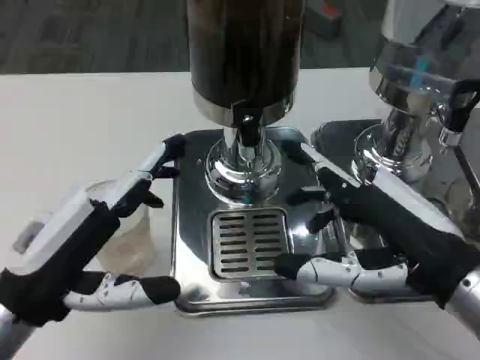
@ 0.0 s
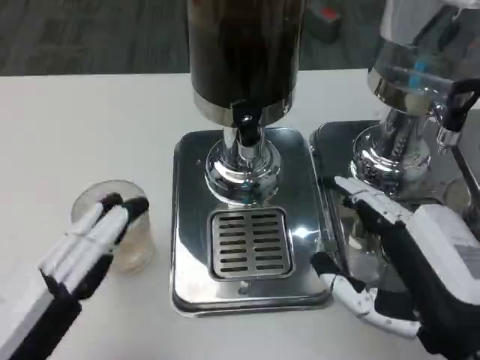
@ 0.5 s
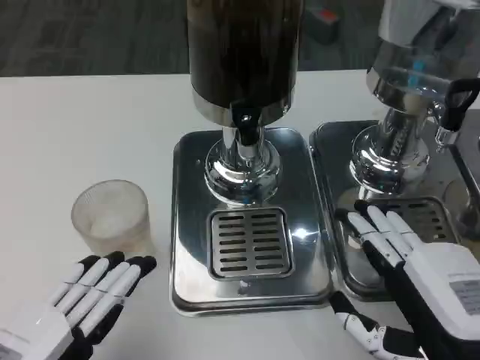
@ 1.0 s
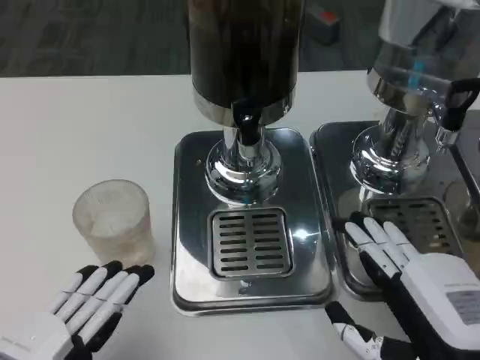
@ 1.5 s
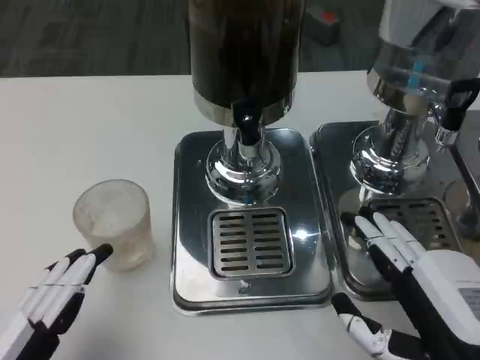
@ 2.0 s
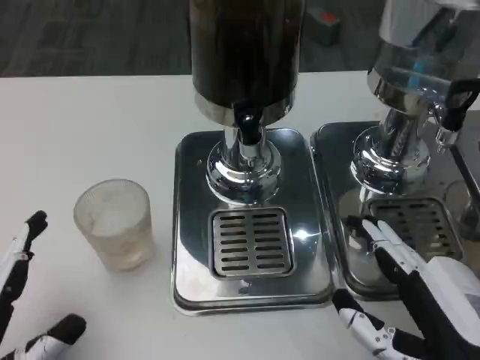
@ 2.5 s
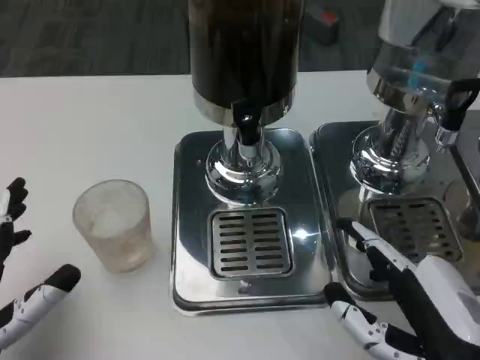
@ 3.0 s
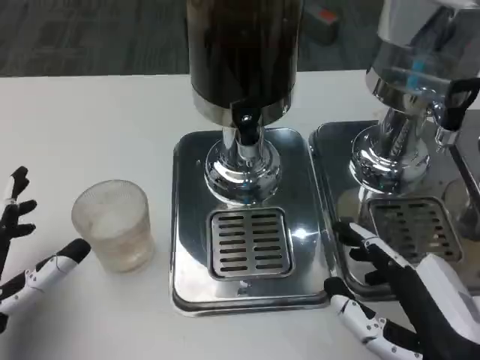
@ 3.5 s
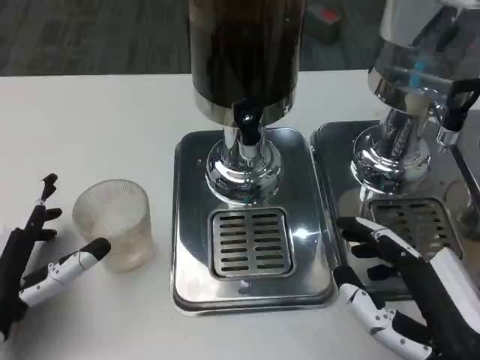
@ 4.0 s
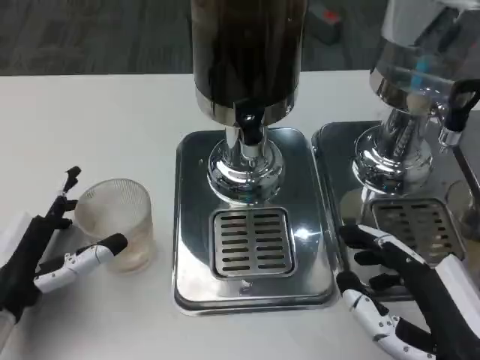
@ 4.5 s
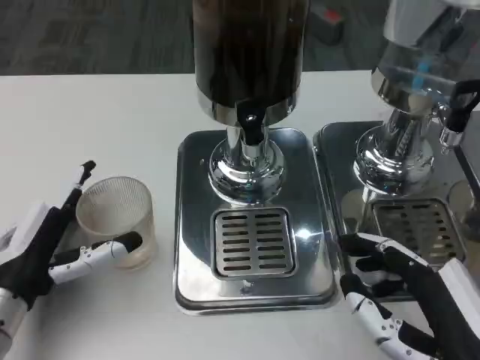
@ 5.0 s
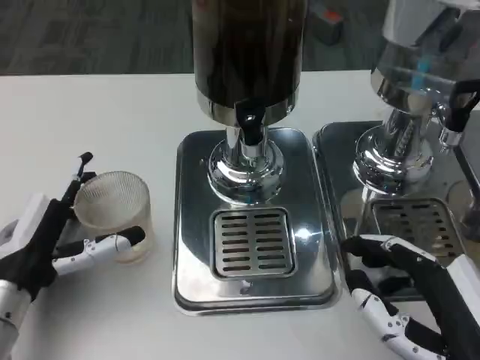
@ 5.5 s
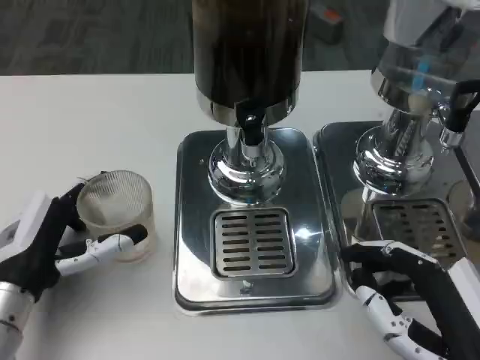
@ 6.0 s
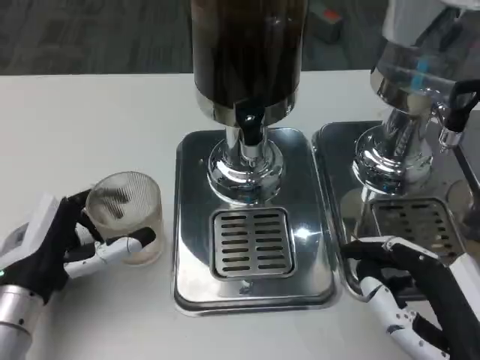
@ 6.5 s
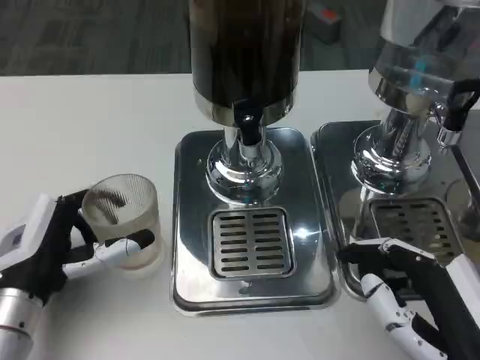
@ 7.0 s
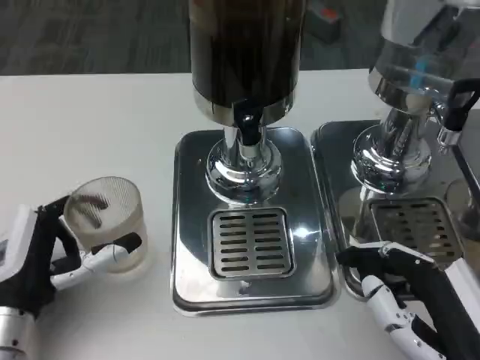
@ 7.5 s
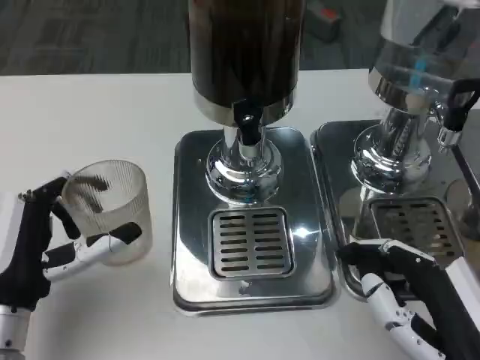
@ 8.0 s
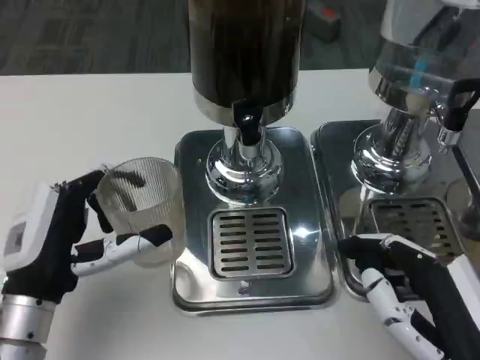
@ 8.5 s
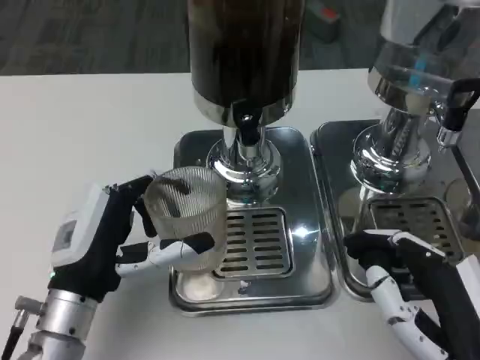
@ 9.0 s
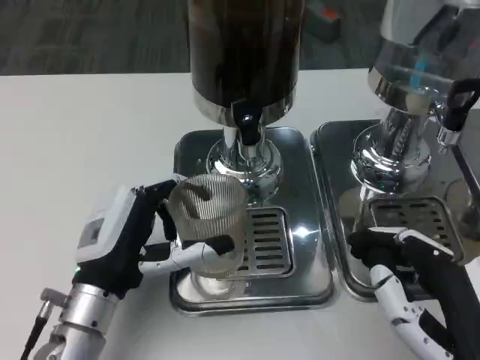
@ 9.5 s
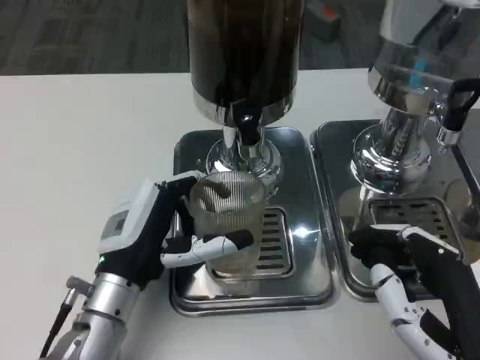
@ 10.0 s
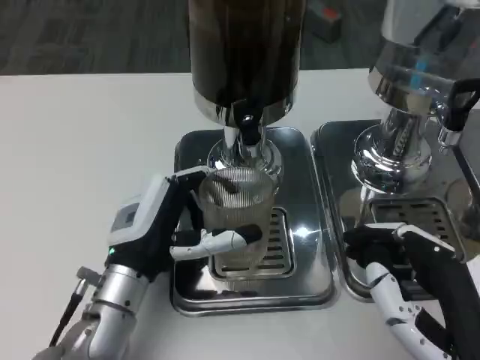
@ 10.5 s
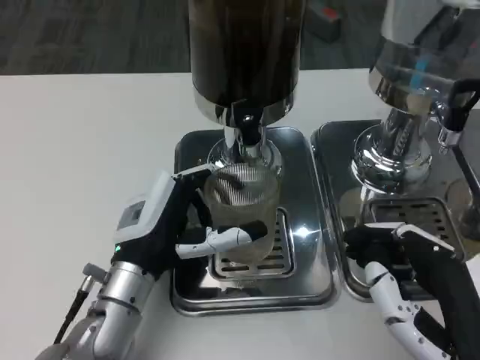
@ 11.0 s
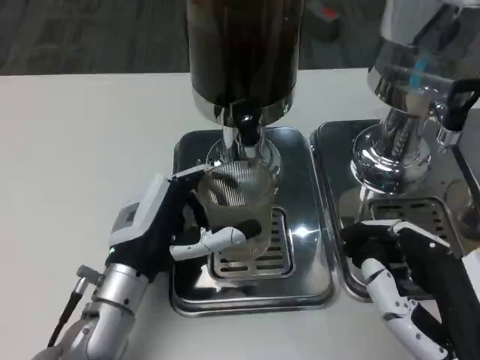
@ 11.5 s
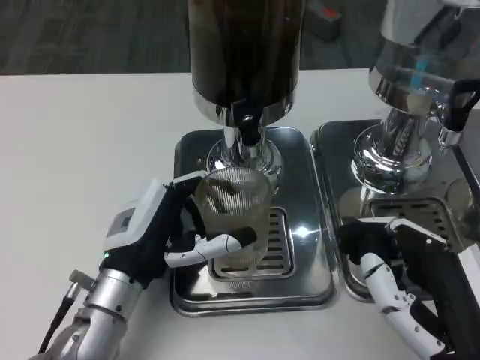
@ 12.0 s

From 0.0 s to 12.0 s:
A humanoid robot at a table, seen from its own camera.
Task of the whole recording: Grasp the cup under the faucet to collect the drink, then remove the cup.
From 0.0 s to 2.0 s: Both hands move backward, approximately 10 cm.
From 2.0 s to 4.0 s: The left hand heads forward, covering approximately 10 cm.
From 6.0 s to 8.0 s: The hands make only small movements.
From 8.0 s to 10.0 s: The left hand heads to the right, covering roughly 10 cm.
From 10.0 s to 12.0 s: The hands move only a little.

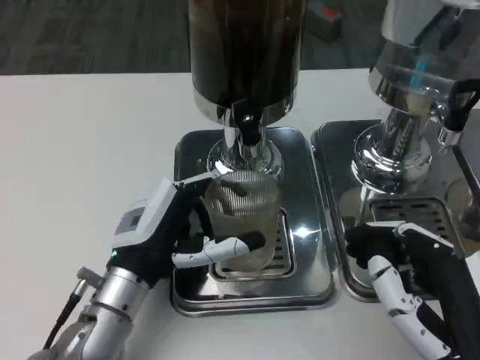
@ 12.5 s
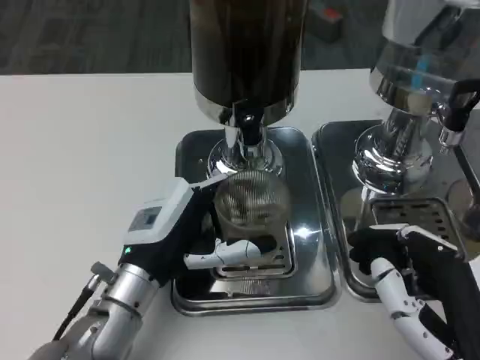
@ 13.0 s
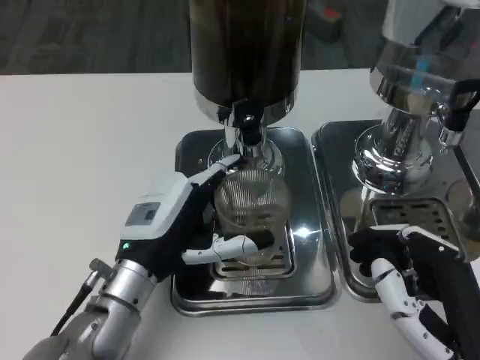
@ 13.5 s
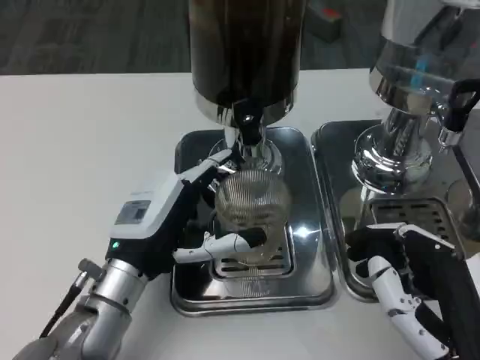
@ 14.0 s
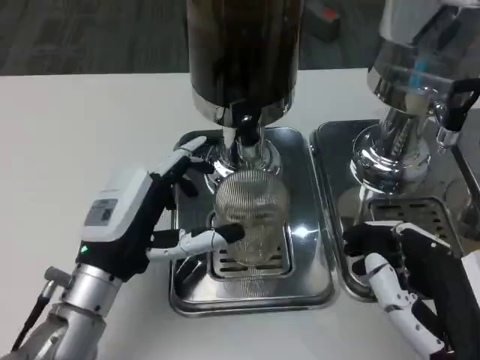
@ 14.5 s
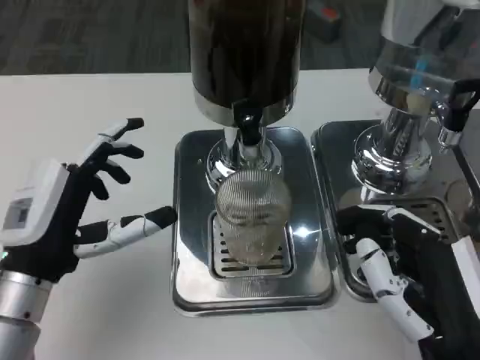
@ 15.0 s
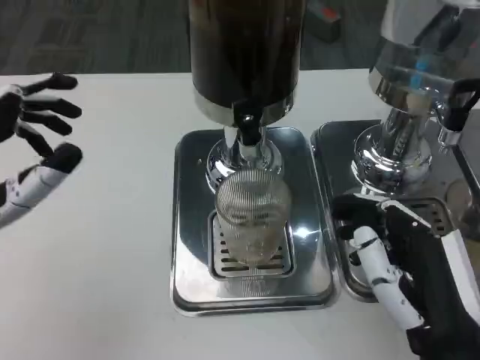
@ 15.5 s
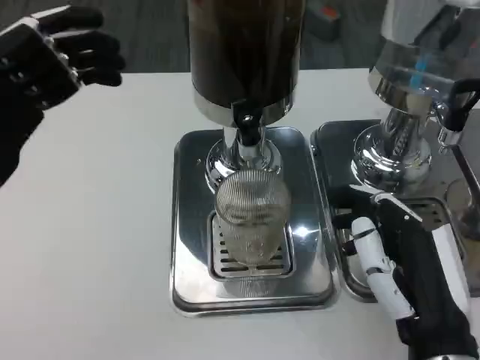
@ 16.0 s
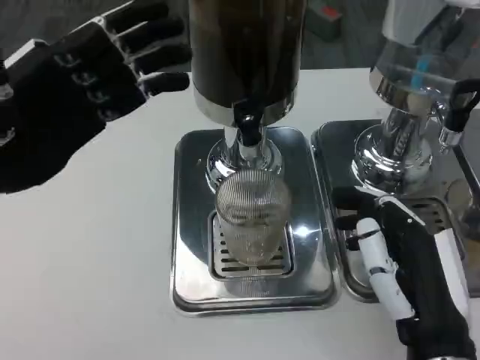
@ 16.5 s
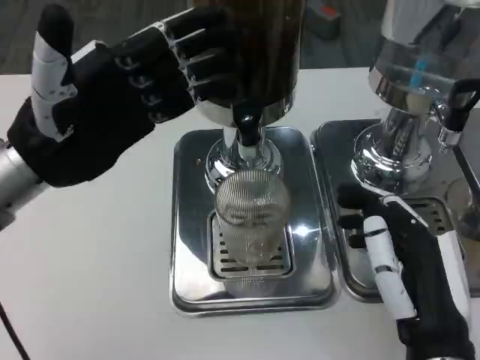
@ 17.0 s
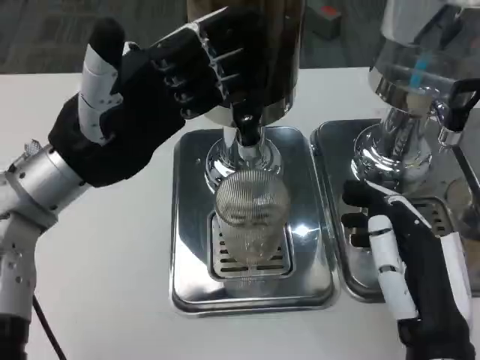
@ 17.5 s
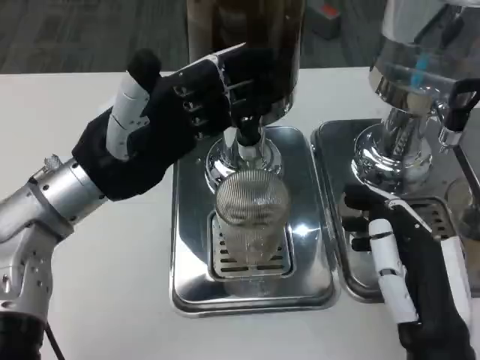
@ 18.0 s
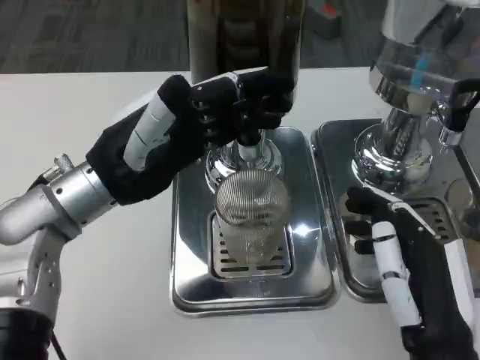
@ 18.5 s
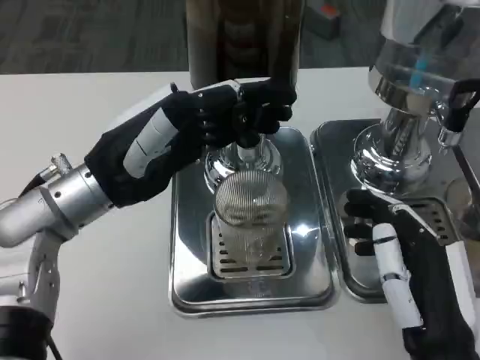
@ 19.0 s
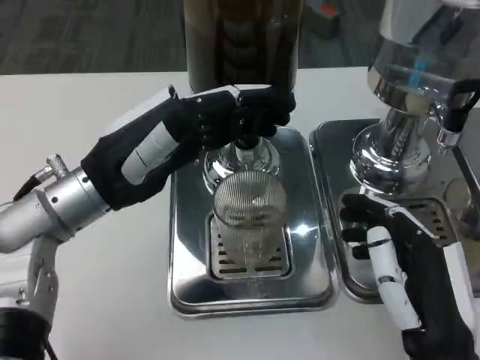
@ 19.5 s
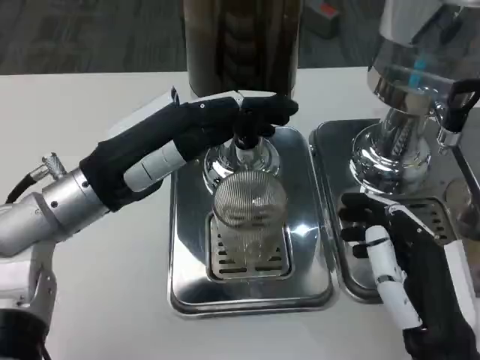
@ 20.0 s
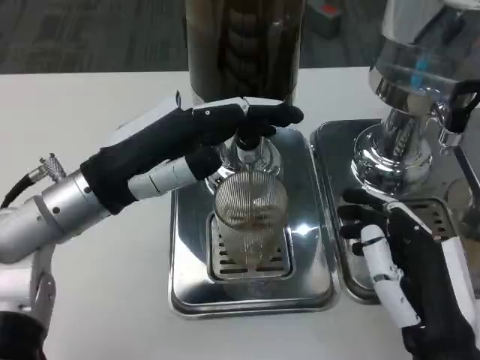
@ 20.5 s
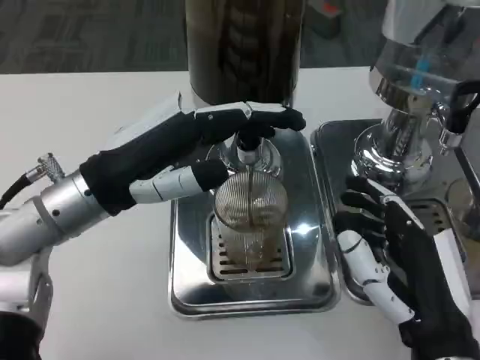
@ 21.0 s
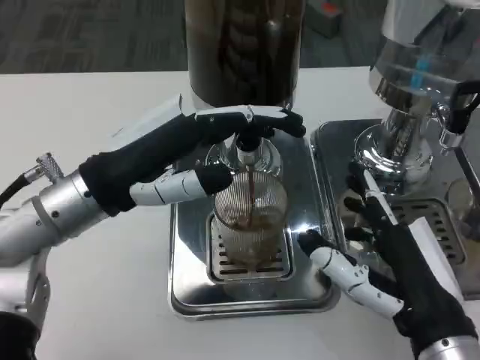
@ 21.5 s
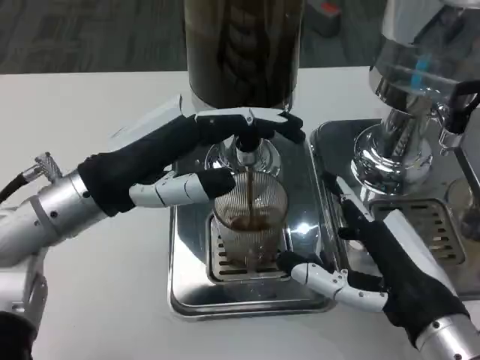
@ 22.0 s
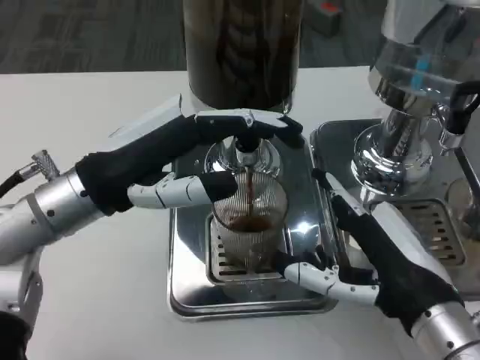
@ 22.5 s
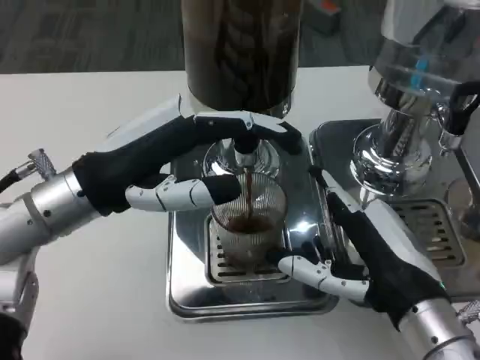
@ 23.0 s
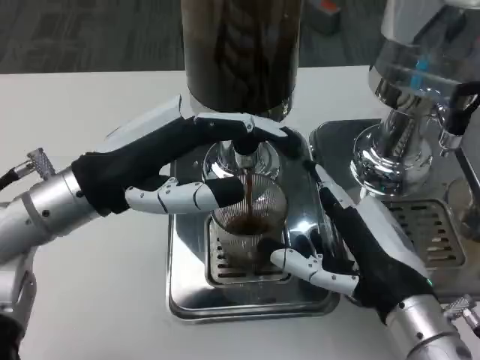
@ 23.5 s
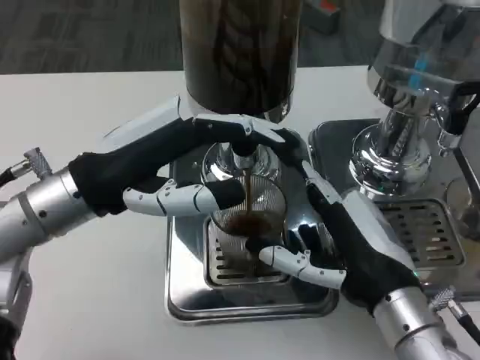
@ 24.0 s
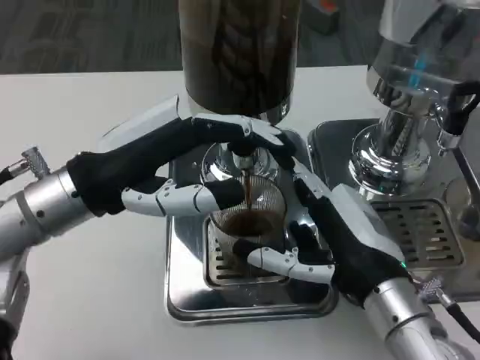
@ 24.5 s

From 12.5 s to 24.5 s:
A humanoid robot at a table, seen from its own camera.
Task of the whole recording: Grasp the cup under the faucet to collect the drink, then remove the cup.
From 12.5 s to 14.5 s: The hands stay close to where they were, moving slightly.
From 14.5 s to 16.5 s: The left hand travels upward and to the left by approximately 15 cm.
From 16.5 s to 18.5 s: The left hand shifts approximately 5 cm to the right.
From 20.5 s to 22.5 s: The right hand changes place by roughly 5 cm.

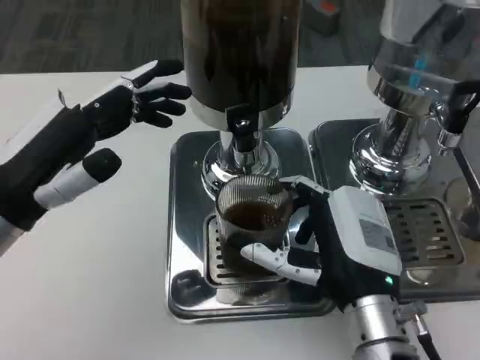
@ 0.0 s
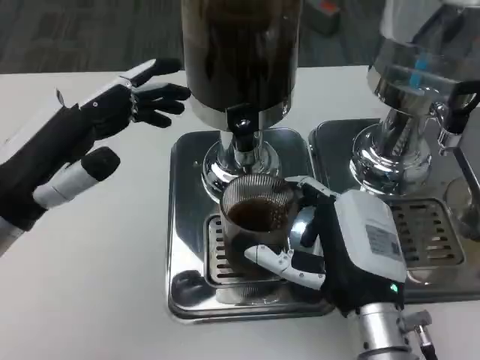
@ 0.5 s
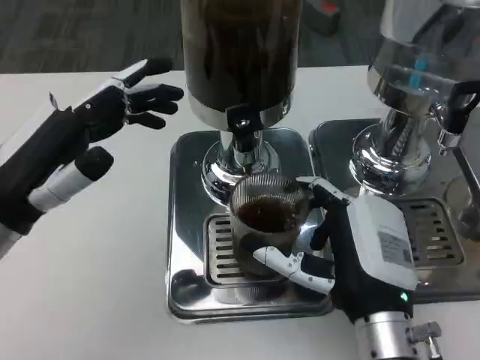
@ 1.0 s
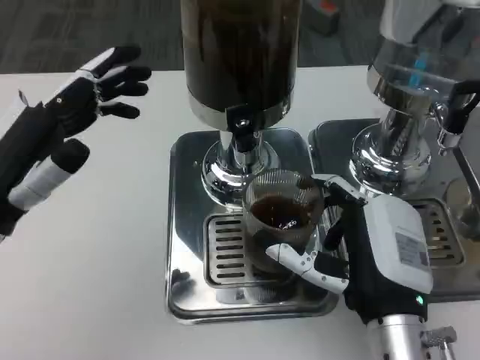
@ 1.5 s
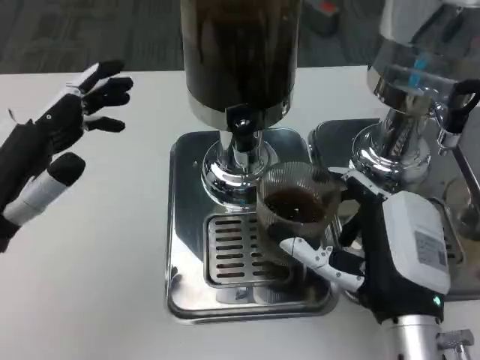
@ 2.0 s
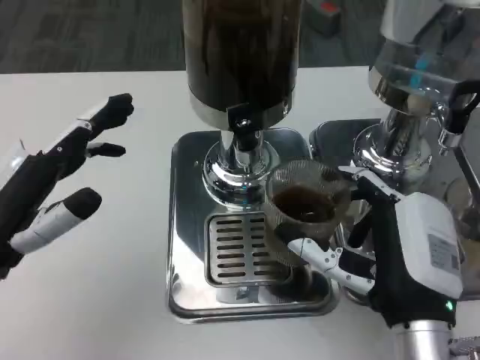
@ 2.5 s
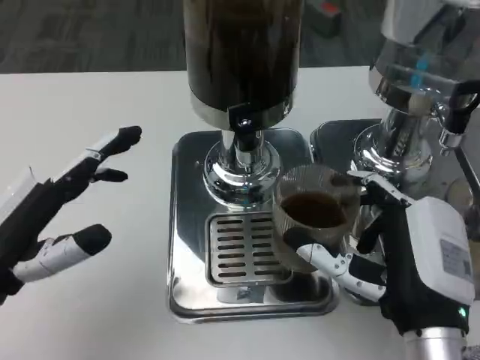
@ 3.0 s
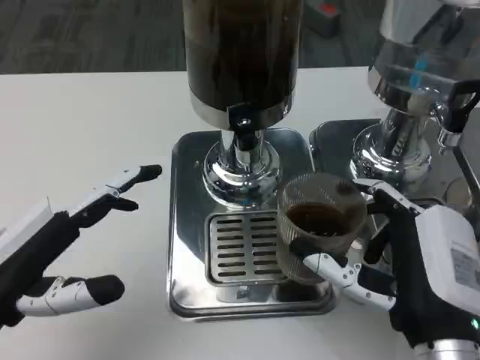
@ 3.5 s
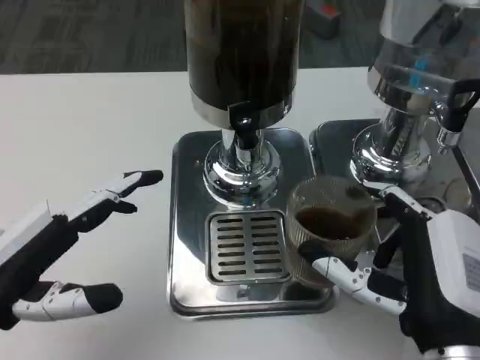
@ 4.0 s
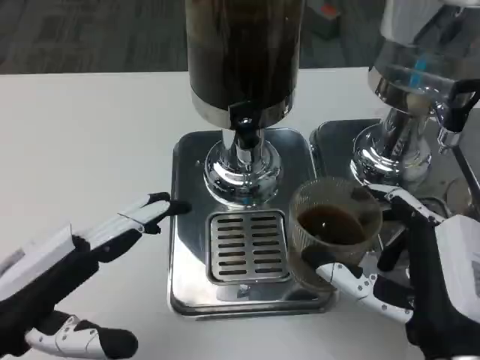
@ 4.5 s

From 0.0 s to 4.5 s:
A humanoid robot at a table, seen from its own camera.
Task of the whole recording: Grasp the cup under the faucet to collect the drink, then remove the cup.
From 2.0 s to 4.5 s: The right hand moves roughly 5 cm. Meanwhile the left hand shifts some 5 cm backward.
